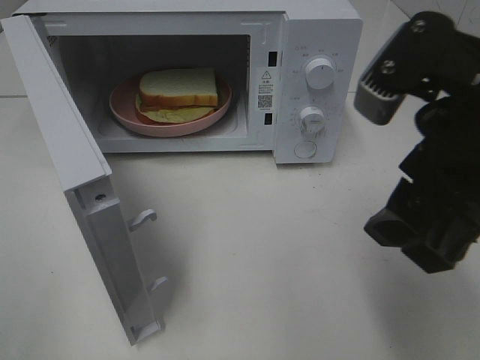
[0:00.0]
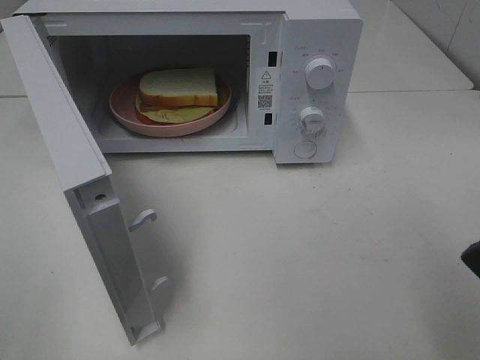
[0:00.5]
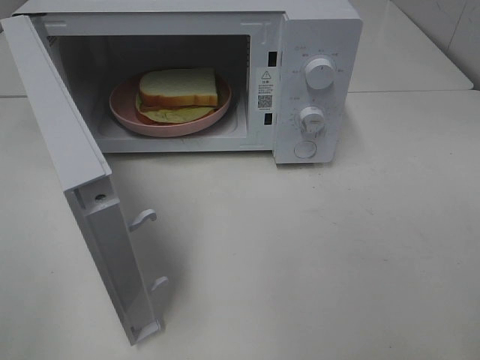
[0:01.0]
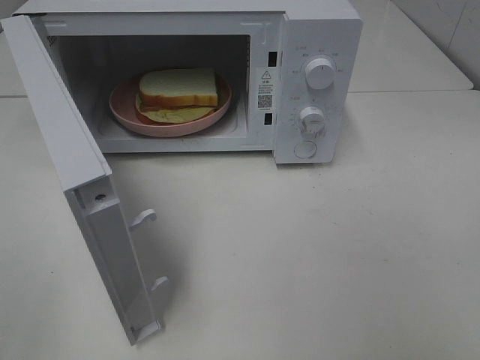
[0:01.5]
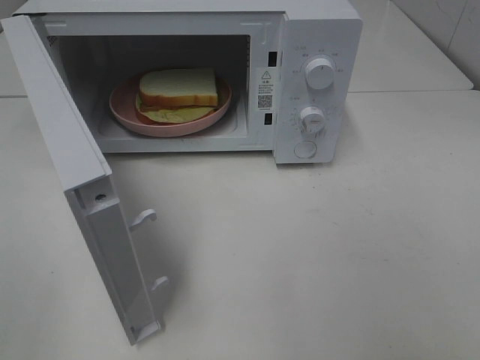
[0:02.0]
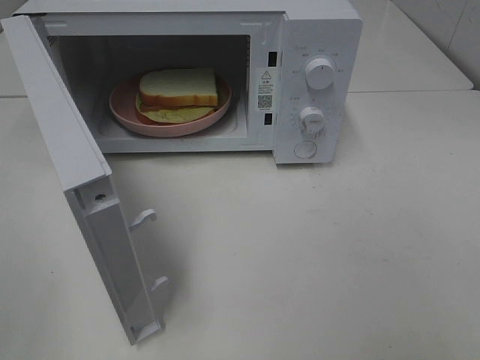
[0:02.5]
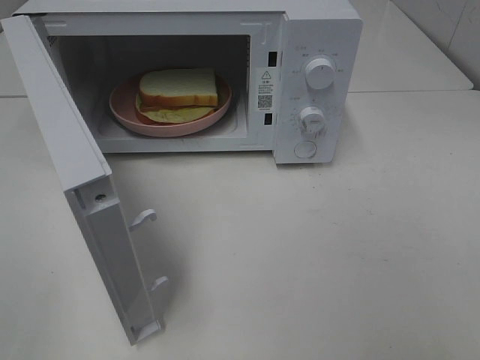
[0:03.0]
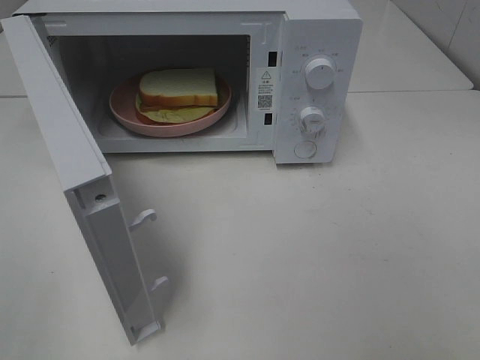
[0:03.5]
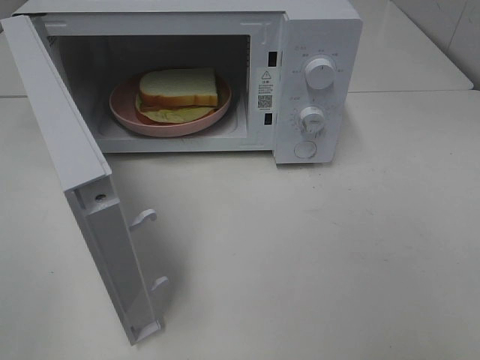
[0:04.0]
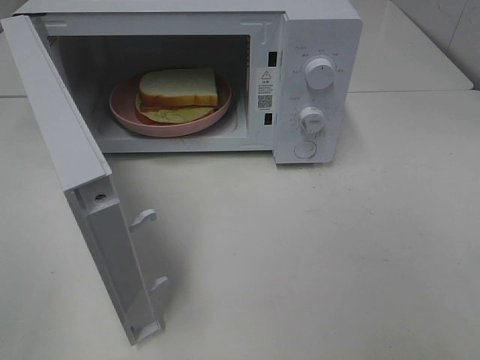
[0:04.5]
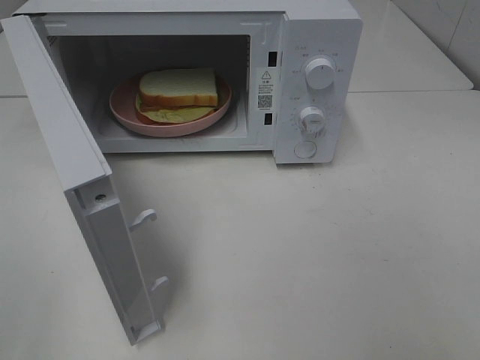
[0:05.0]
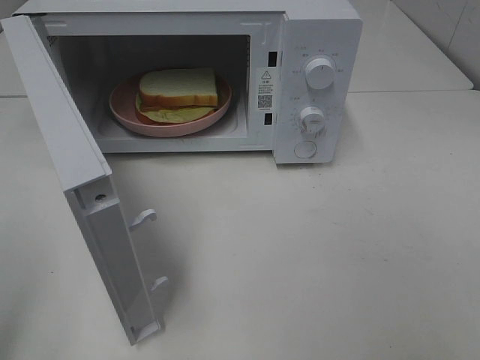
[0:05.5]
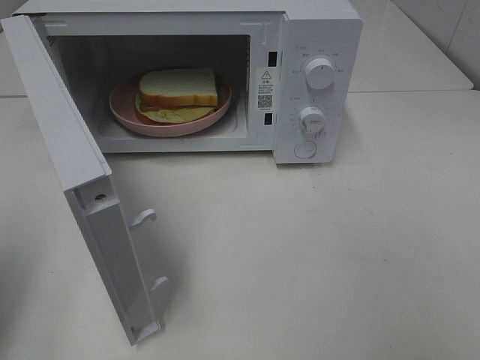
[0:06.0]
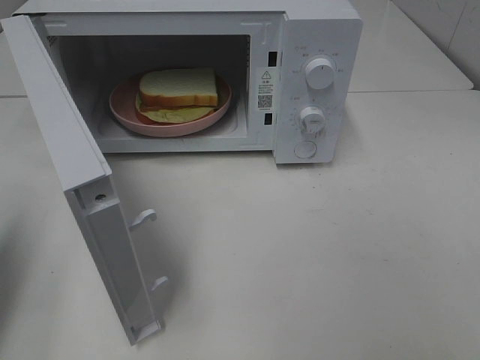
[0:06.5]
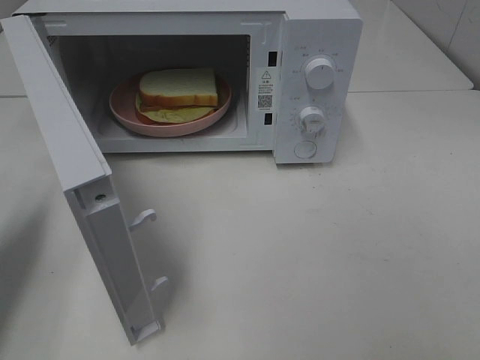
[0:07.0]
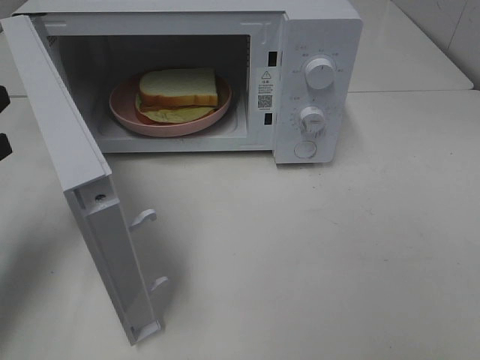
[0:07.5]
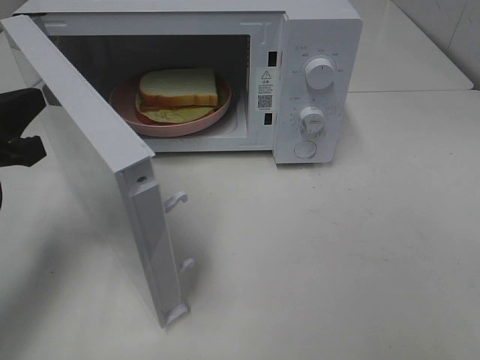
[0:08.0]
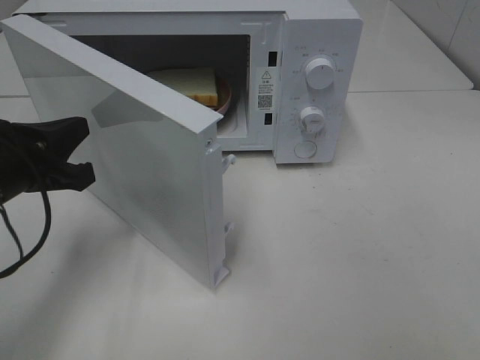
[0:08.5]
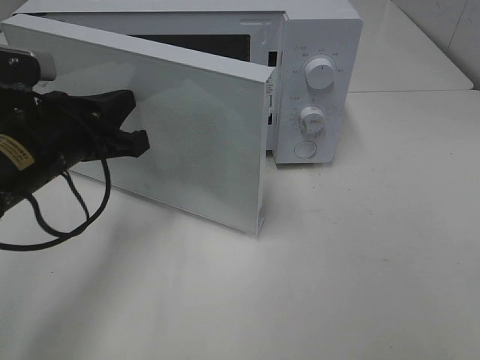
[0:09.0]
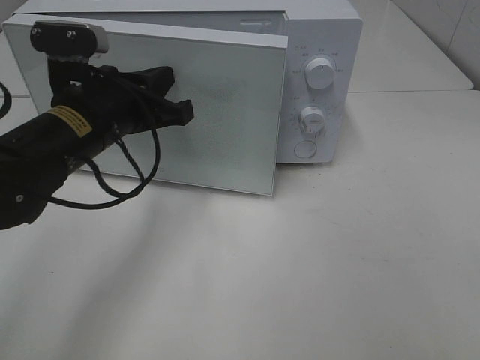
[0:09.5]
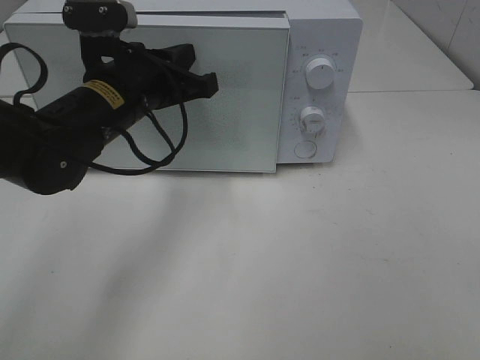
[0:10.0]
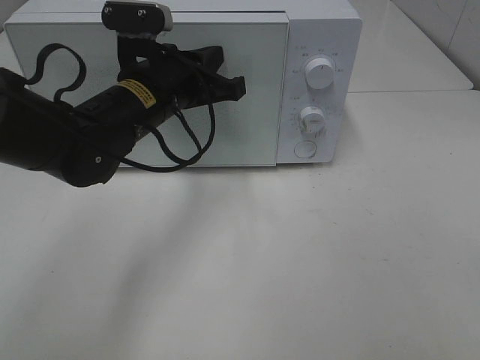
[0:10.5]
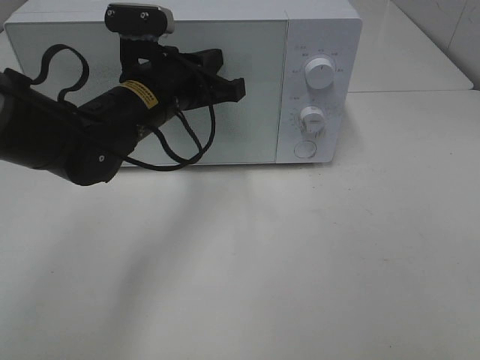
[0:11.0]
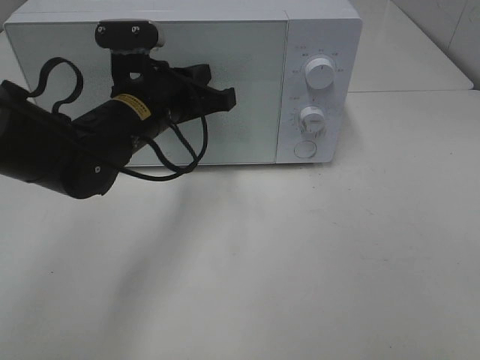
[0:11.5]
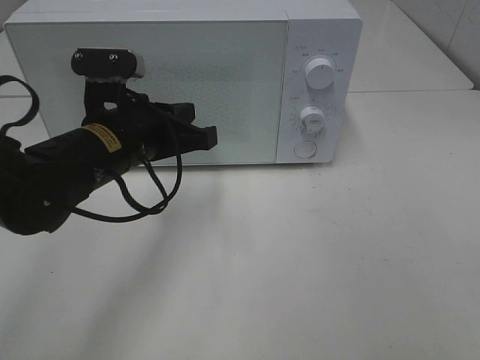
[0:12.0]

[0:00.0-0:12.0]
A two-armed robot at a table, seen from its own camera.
Task of the whole recording: Heat Sandwich.
Step, 0:00.0 to 0:11.0: Left hand: close the microwave door.
0:00.0 to 0:02.0: The right gripper moves backward and to the right, approximately 20 cm.
0:04.0 to 0:06.0: The left gripper shifts about 15 cm forward, and closes its fingers.
0:06.0 to 0:08.0: The left gripper is displaced forward, downward and to the right by roughly 15 cm.
0:08.0 to 0:10.0: The left gripper shifts approximately 20 cm to the right and forward.
0:10.0 to 0:12.0: There are only small adjustments of the grippers.

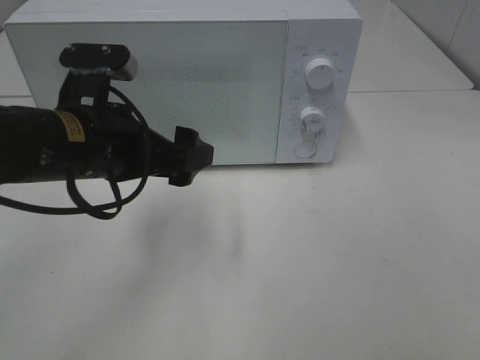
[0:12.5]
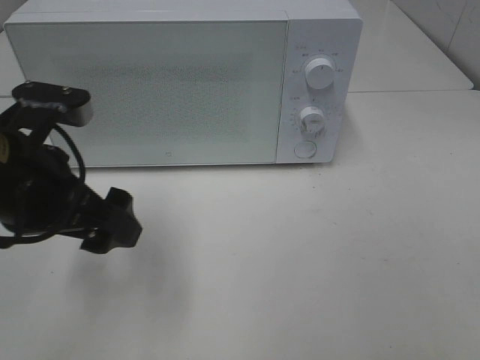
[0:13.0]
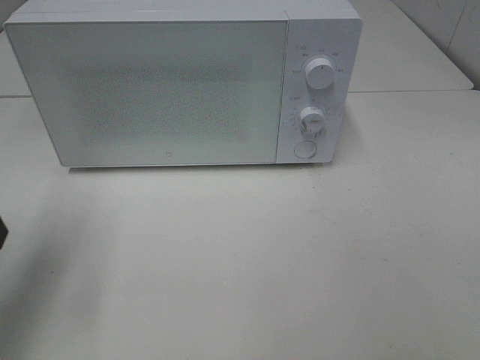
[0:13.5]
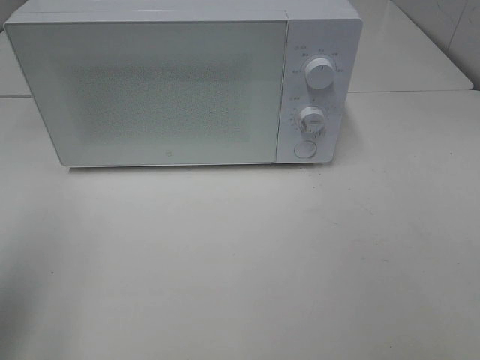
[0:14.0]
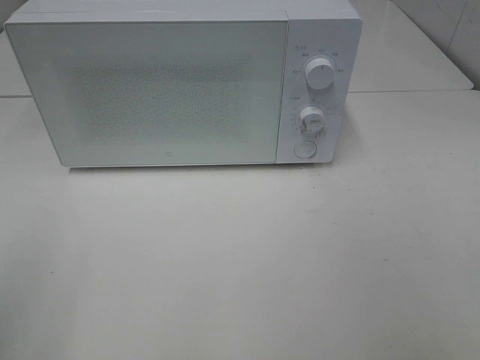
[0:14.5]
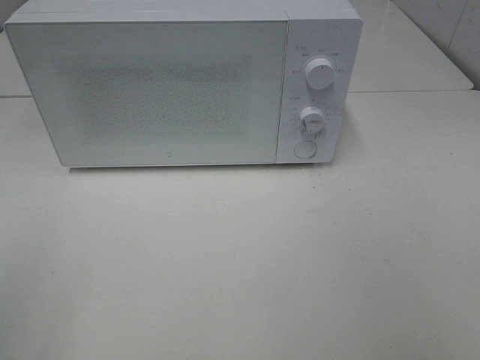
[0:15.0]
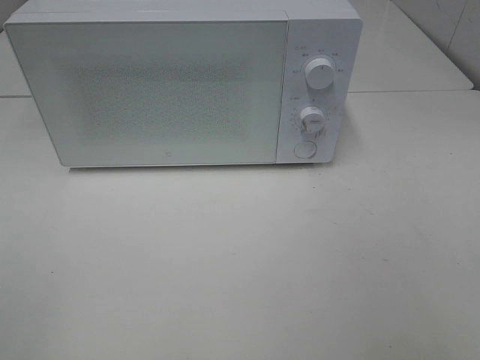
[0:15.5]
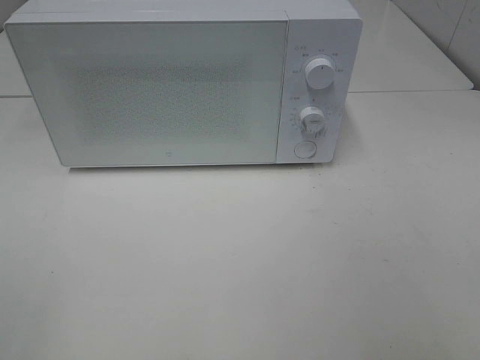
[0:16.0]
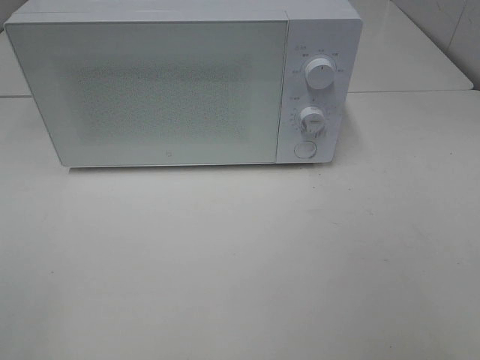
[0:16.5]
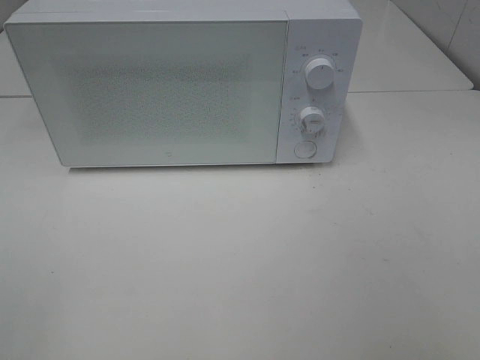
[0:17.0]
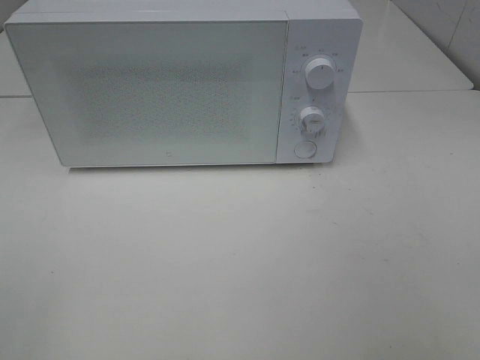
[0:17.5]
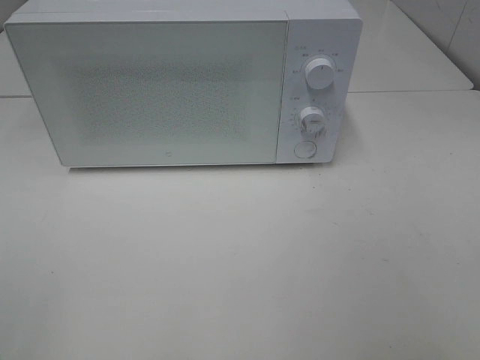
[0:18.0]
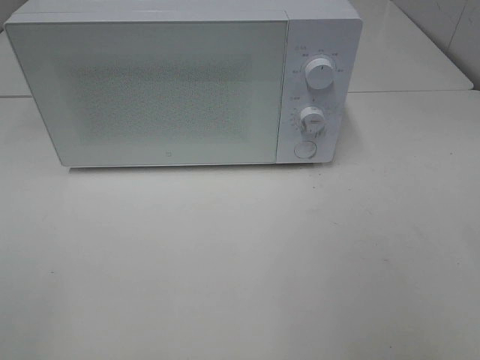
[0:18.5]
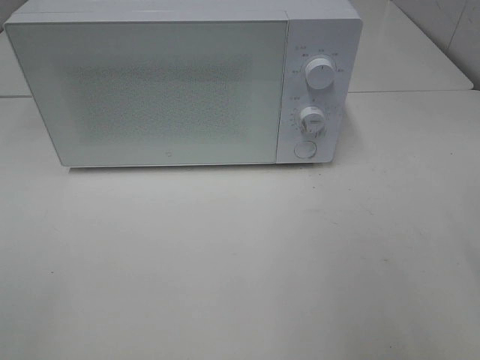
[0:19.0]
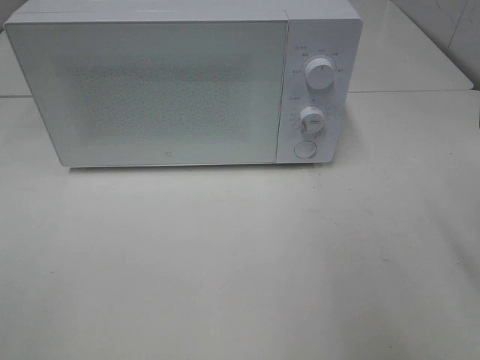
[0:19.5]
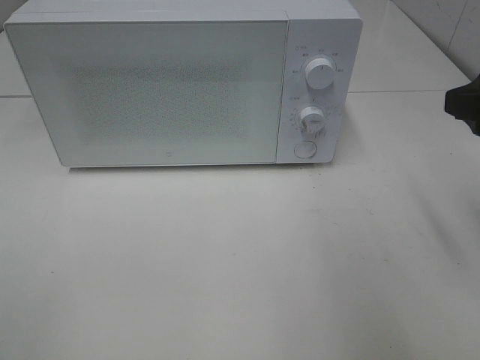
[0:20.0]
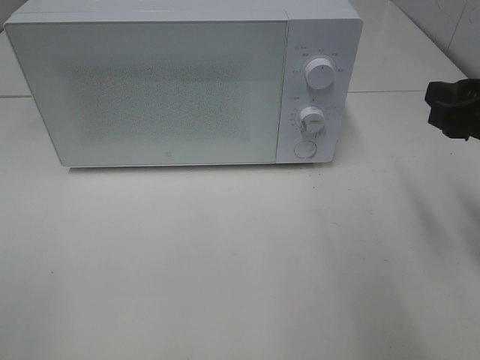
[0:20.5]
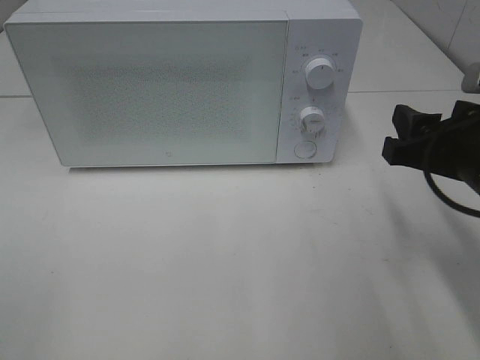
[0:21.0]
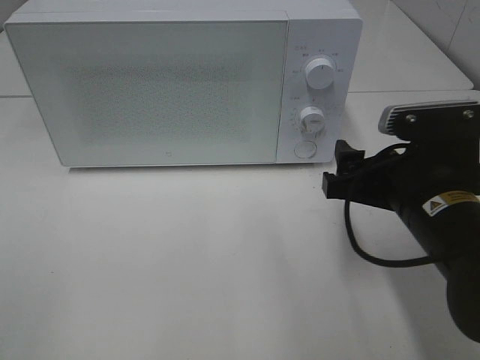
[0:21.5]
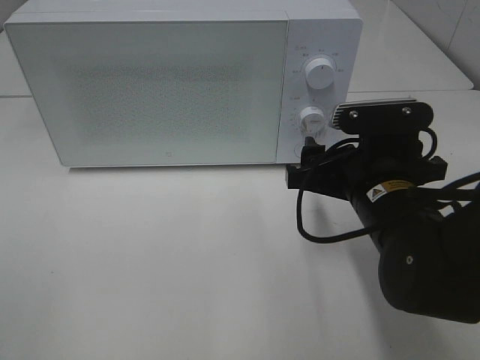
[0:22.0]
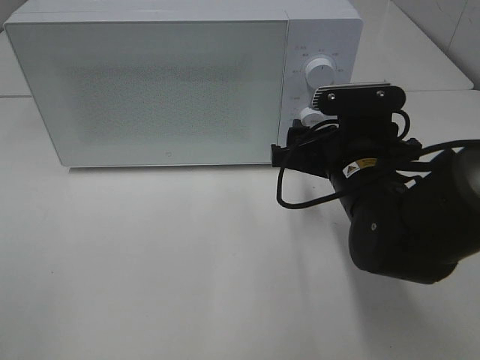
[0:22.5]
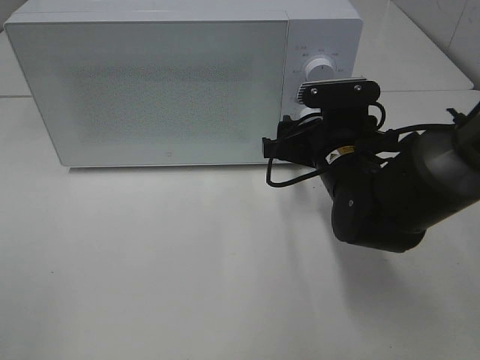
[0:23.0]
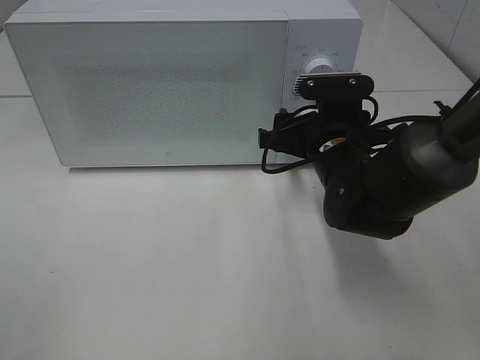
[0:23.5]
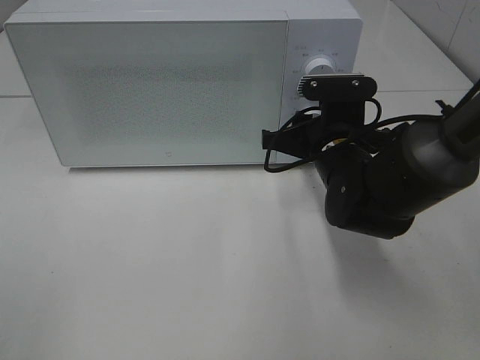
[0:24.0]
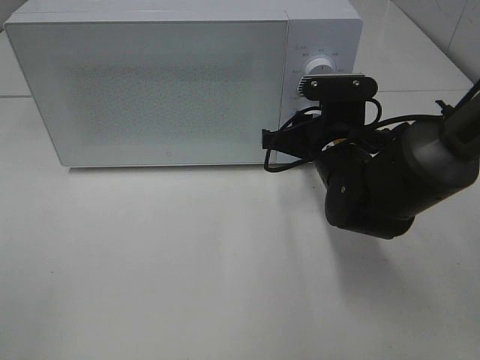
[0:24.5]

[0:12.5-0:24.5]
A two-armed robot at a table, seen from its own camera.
Task of the whole recording: Heat Sandwich.
0:12.5 to 0:14.5: The left gripper goes roughly 25 cm backward, to the left and upward.
0:18.5 to 0:20.5: The right gripper travels forward and downward by roughly 20 cm.
0:20.5 to 0:22.5: The right gripper shifts some 15 cm to the left and downward.
0:22.5 to 0:24.5: The right gripper heads forward, covering approximately 5 cm, and closes up.

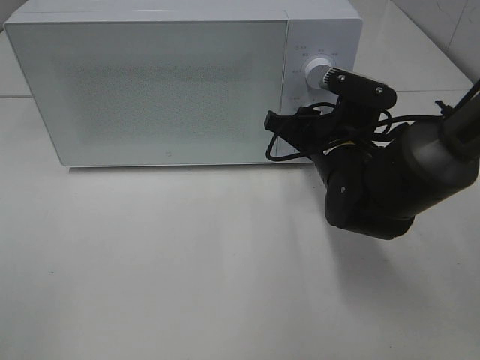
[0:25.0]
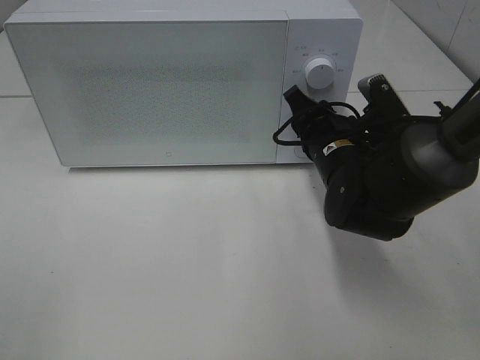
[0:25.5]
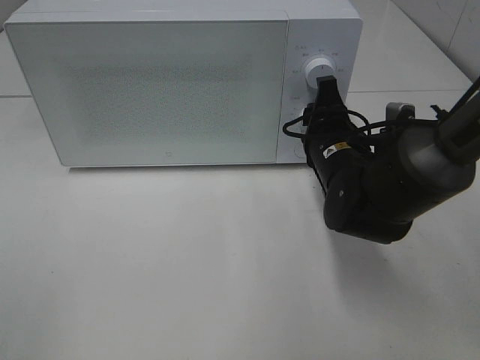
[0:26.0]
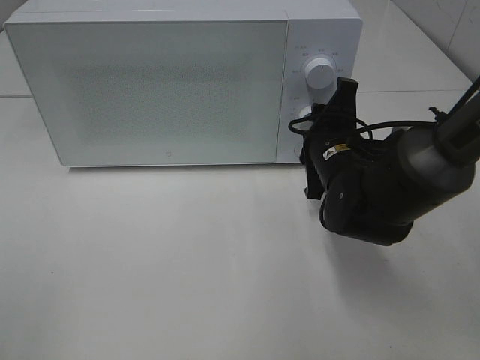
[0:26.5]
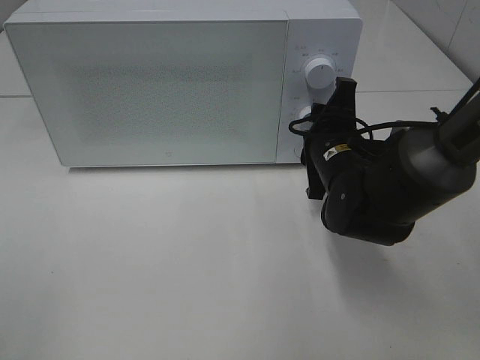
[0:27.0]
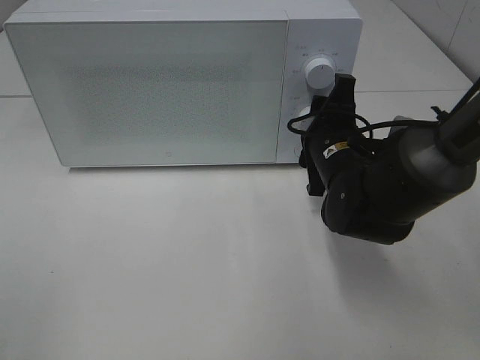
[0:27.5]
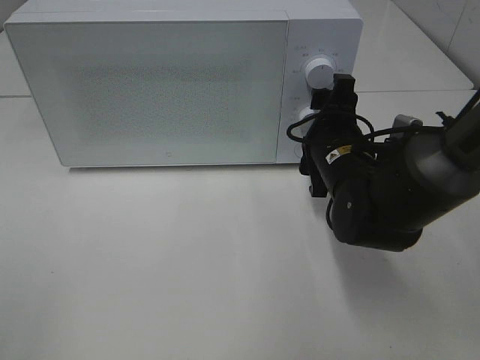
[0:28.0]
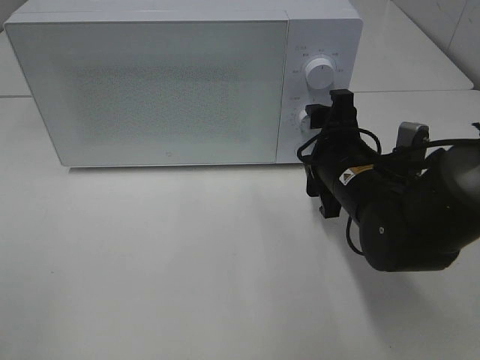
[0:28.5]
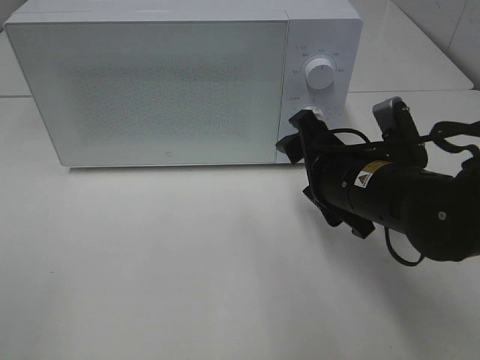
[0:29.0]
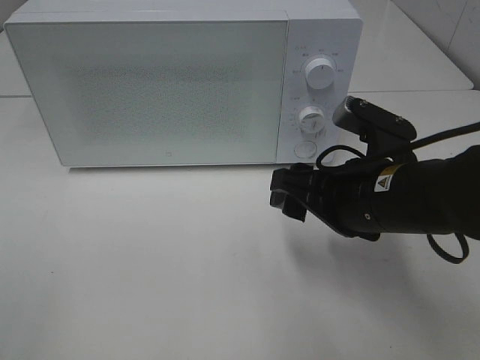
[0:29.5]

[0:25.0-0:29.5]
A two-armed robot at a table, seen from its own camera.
Task of the whole recording: Heat Sandwich.
Step, 0:25.0 to 0:28.0: Right hand: twist timer button.
0:27.0 to 0:29.5: The right gripper goes some 10 cm backward, and opens its fingers.
